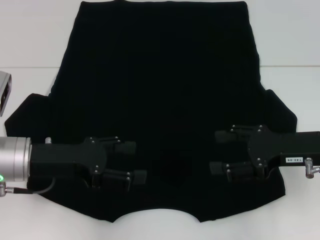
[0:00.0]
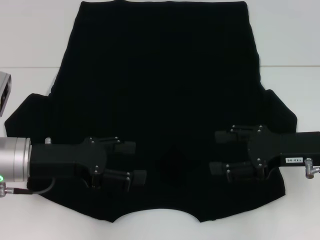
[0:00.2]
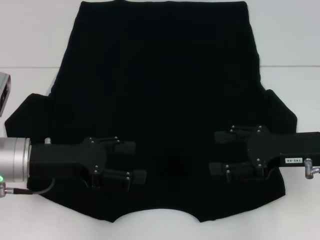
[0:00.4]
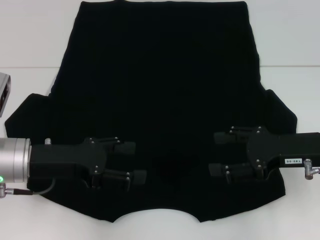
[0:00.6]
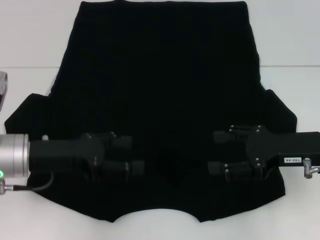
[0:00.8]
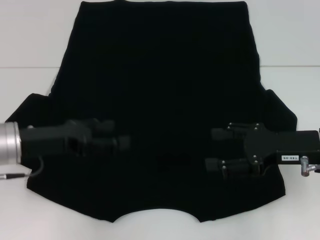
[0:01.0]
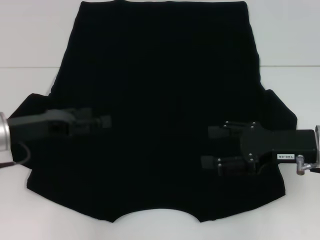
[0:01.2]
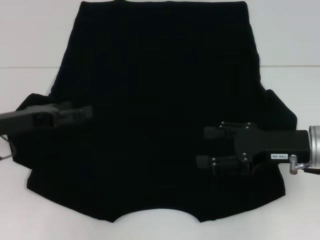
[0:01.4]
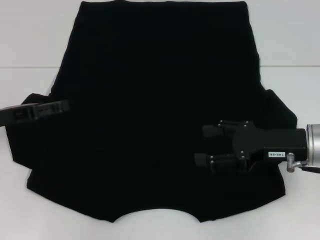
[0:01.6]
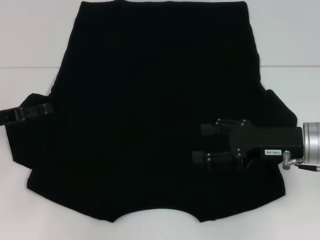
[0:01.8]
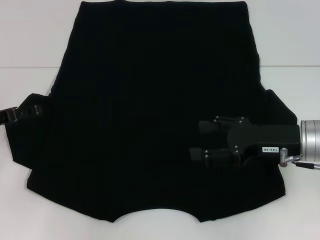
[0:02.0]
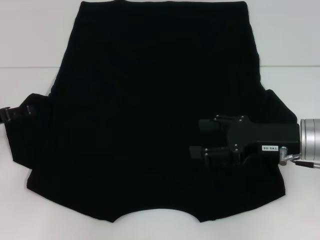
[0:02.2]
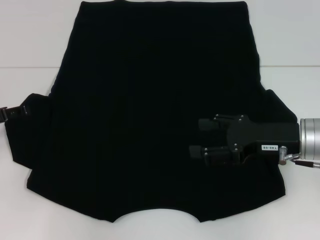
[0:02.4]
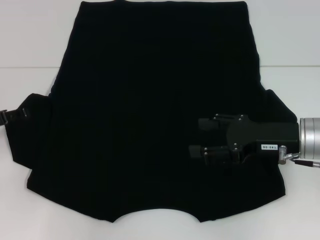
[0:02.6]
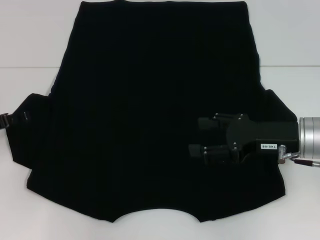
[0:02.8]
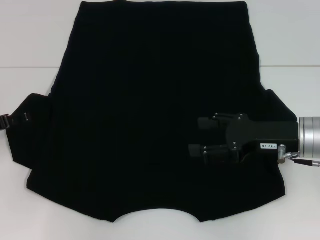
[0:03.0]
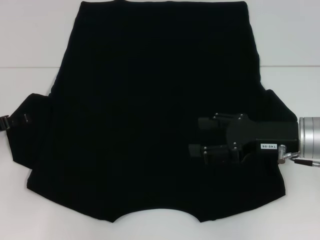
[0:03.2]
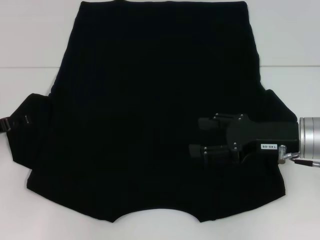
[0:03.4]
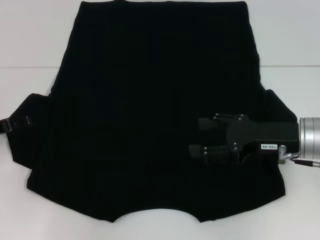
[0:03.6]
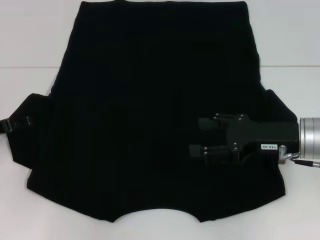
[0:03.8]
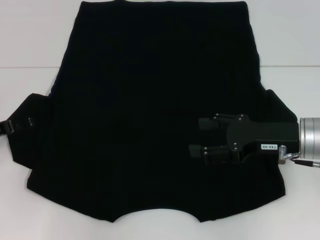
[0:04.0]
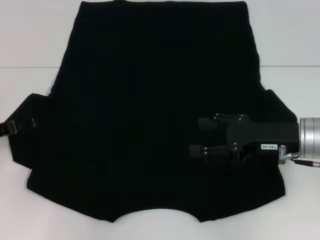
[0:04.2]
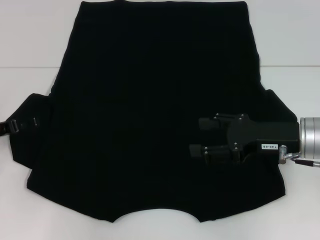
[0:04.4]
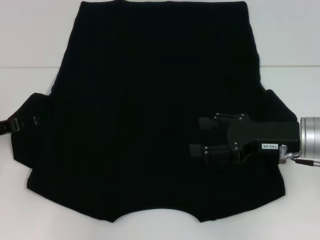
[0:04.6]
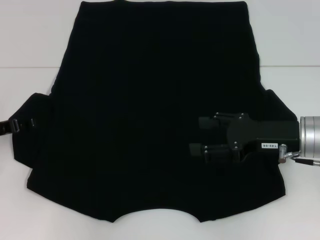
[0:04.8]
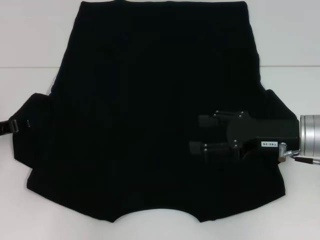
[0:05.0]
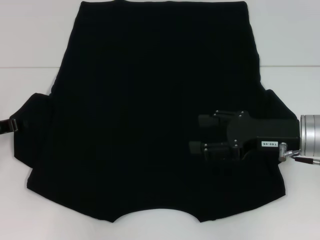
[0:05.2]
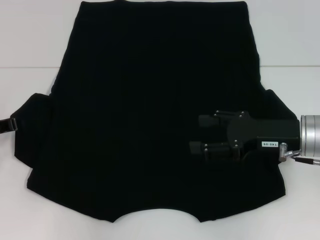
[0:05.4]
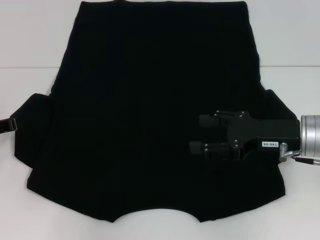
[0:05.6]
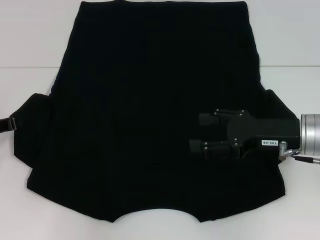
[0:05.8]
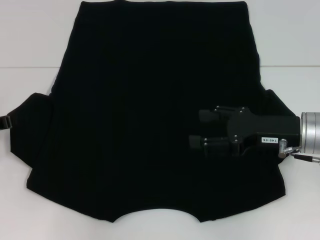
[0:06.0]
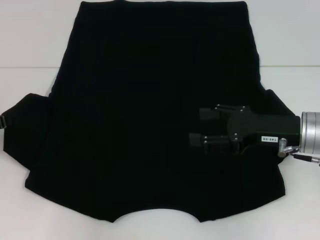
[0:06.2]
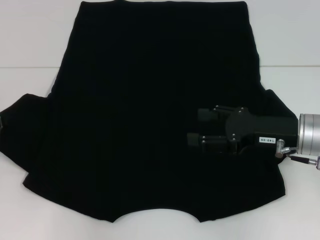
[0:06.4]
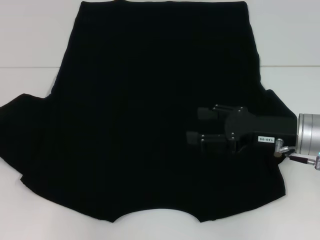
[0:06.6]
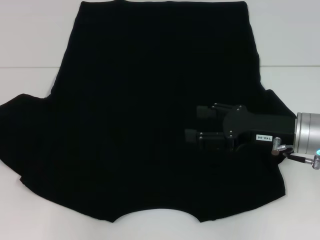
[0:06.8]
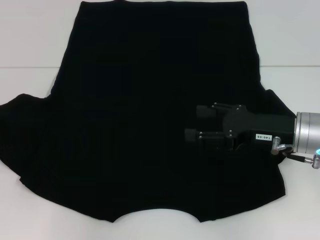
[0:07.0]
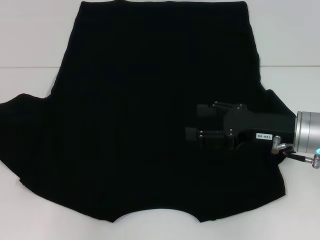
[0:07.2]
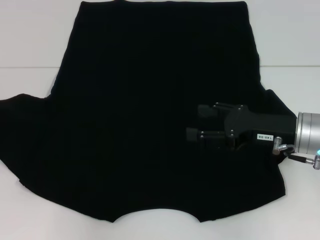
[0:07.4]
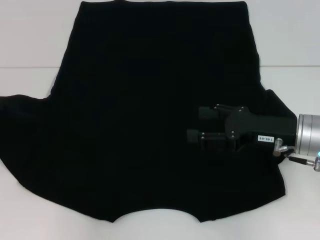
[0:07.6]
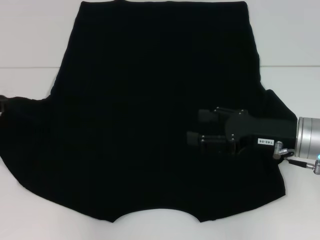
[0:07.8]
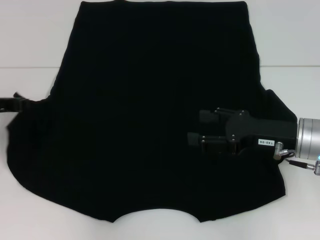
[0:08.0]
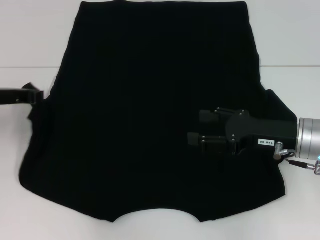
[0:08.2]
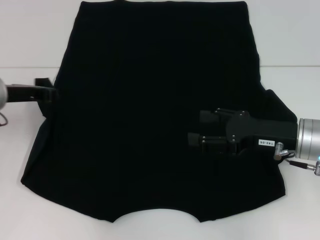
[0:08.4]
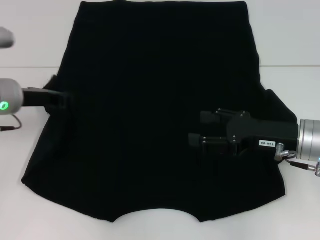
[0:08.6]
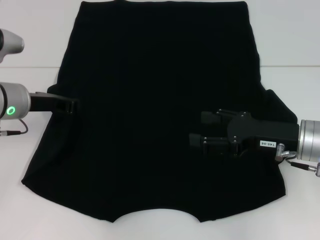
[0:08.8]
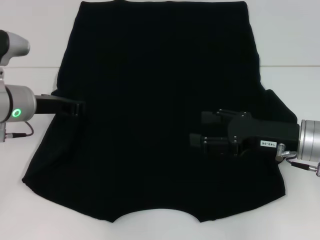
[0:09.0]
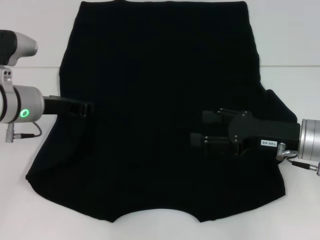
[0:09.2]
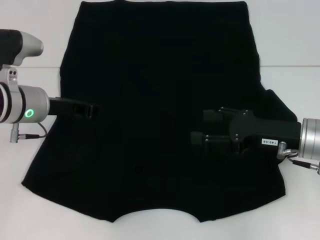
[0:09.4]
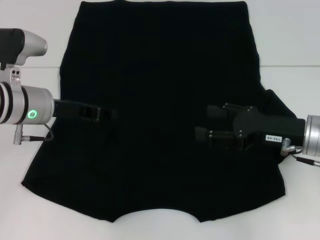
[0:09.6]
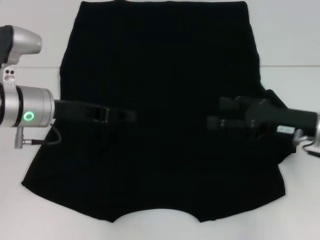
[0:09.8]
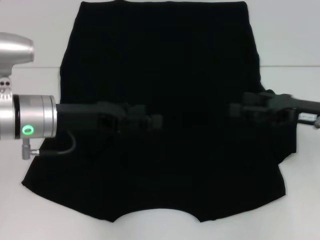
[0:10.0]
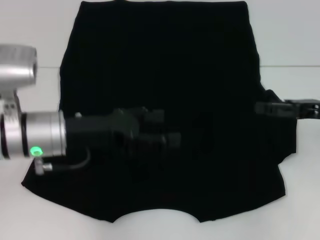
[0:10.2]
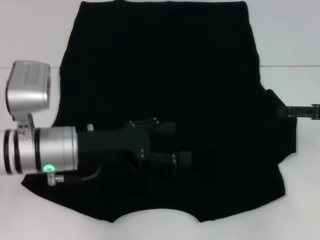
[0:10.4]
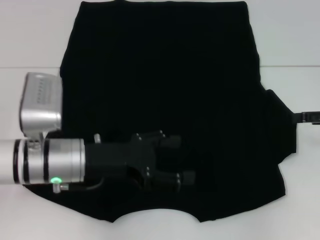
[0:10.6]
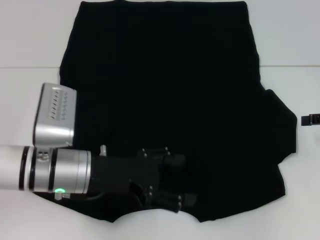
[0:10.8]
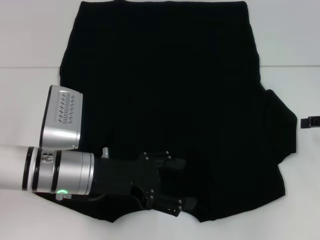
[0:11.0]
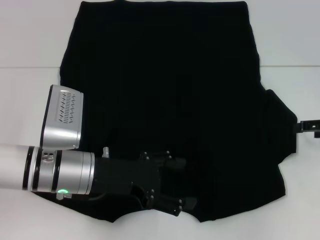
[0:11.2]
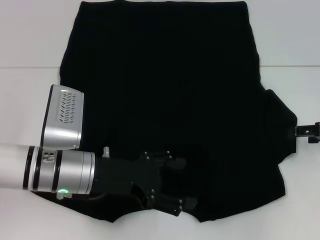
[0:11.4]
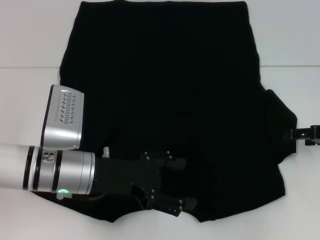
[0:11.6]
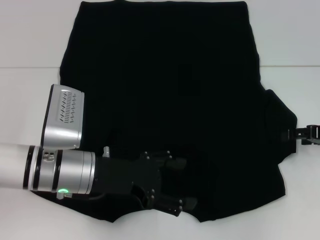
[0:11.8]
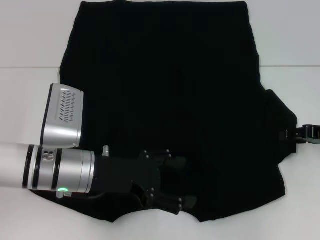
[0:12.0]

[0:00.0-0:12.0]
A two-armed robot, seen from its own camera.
Step, 0:00.0 to 0:09.4: Fold the bottom left sleeve with your left hand.
0:00.0 to 0:01.6: The left gripper moves to the left, approximately 10 cm.
0:03.0 to 0:04.4: Neither gripper changes place.
0:04.4 to 0:06.0: The left gripper closes up.
0:06.0 to 0:07.6: The grippers stay close to where they were, moving slightly.
0:07.6 to 0:09.0: The left gripper shifts some 10 cm to the right.
0:09.0 to 0:10.4: The right gripper travels to the right by roughly 10 cm. The left gripper is displaced backward and to the right by some 10 cm, and opens up.
0:10.4 to 0:12.0: The grippers make only small movements.

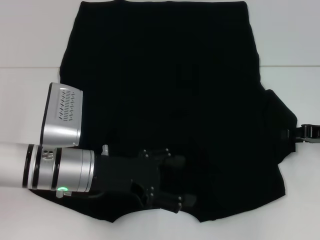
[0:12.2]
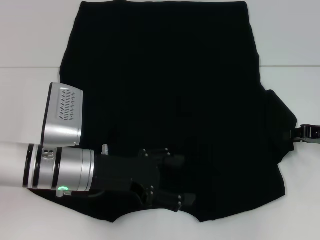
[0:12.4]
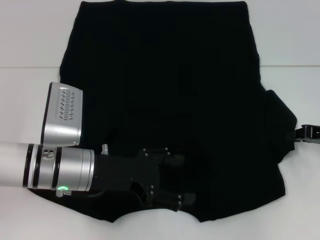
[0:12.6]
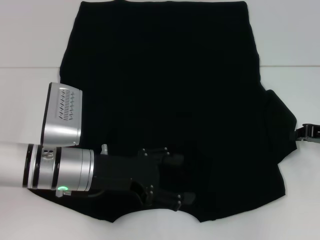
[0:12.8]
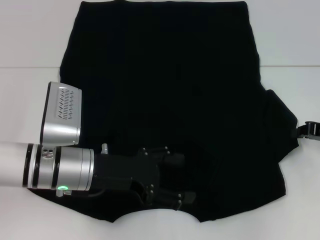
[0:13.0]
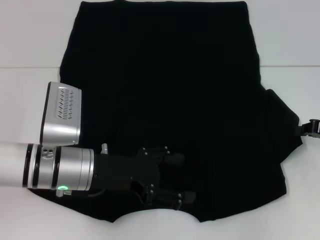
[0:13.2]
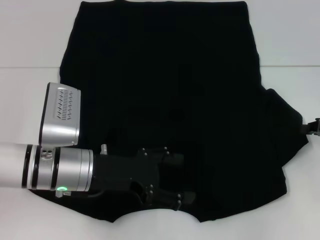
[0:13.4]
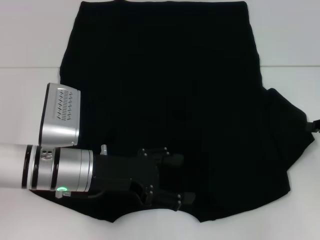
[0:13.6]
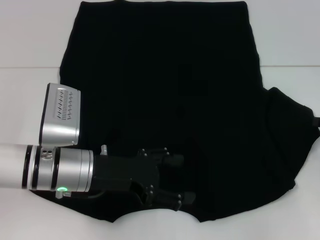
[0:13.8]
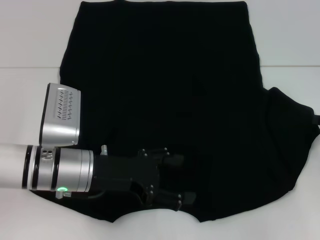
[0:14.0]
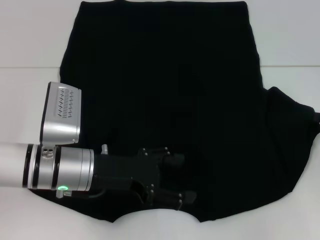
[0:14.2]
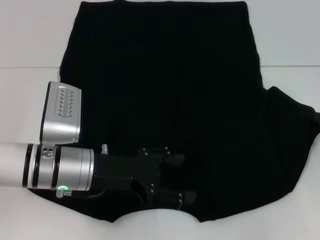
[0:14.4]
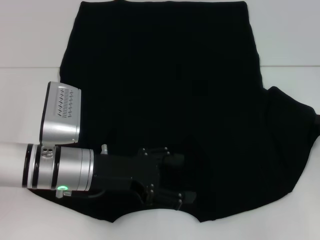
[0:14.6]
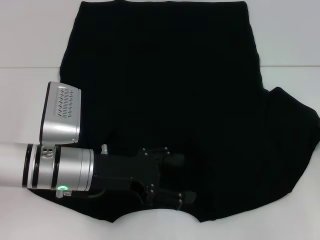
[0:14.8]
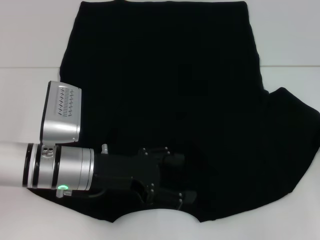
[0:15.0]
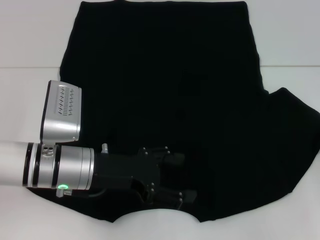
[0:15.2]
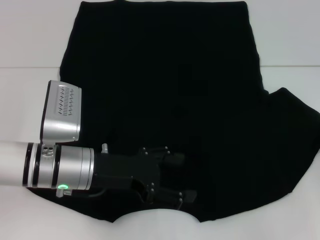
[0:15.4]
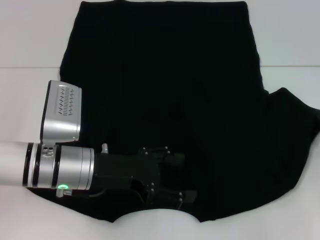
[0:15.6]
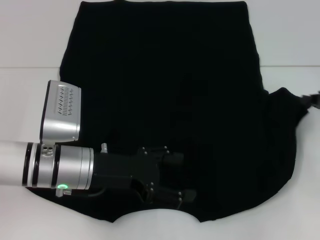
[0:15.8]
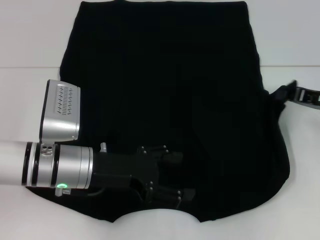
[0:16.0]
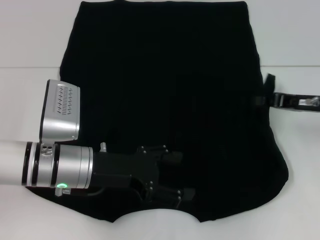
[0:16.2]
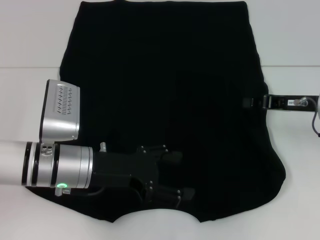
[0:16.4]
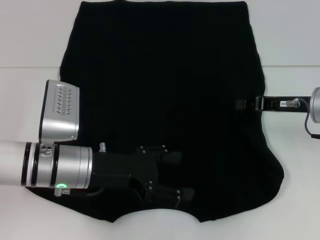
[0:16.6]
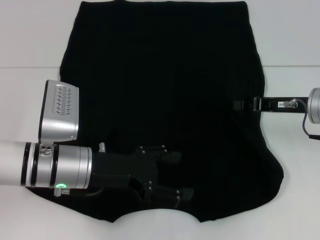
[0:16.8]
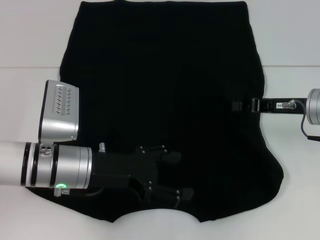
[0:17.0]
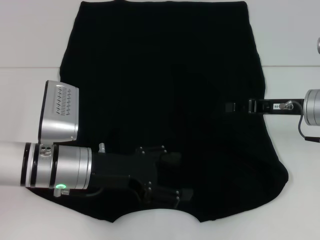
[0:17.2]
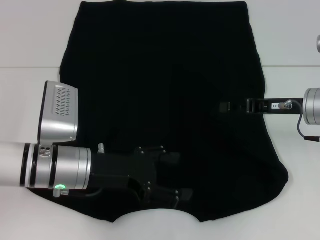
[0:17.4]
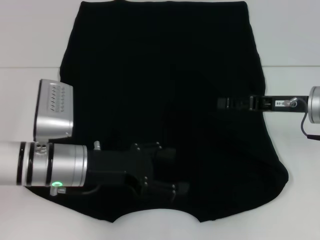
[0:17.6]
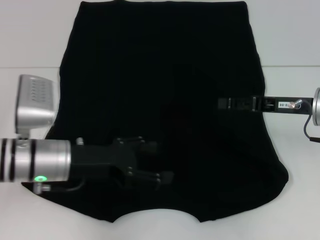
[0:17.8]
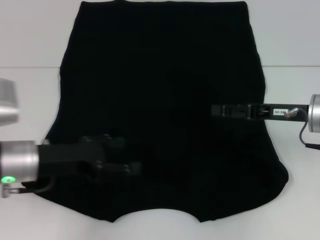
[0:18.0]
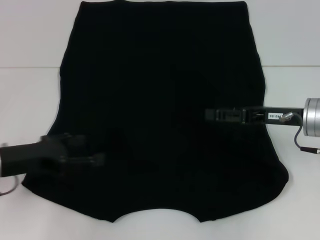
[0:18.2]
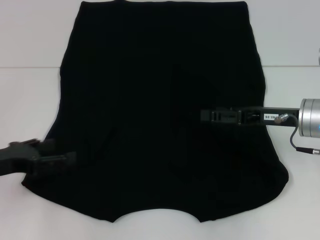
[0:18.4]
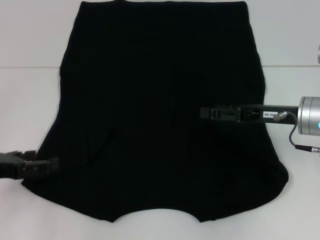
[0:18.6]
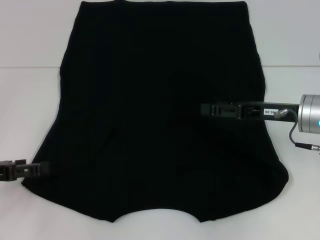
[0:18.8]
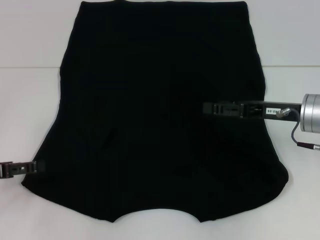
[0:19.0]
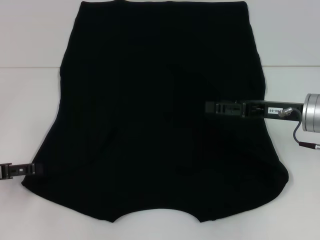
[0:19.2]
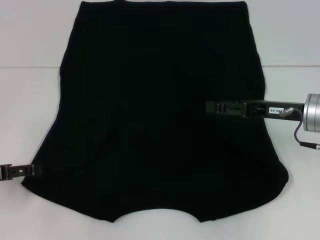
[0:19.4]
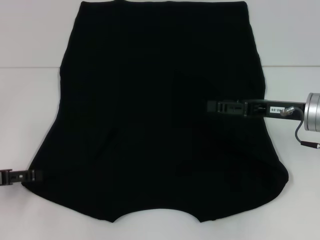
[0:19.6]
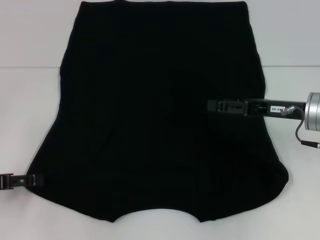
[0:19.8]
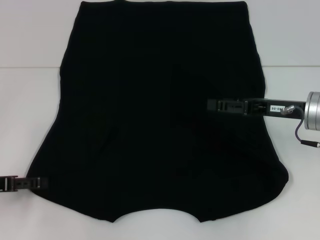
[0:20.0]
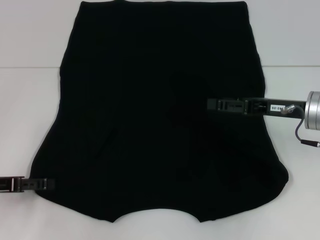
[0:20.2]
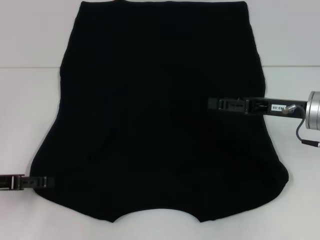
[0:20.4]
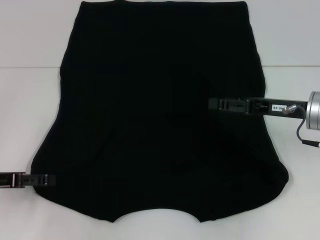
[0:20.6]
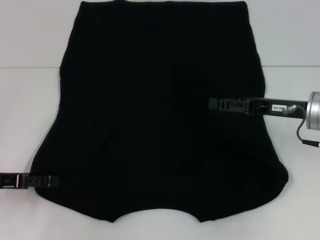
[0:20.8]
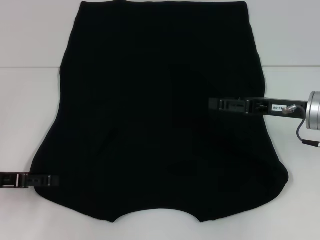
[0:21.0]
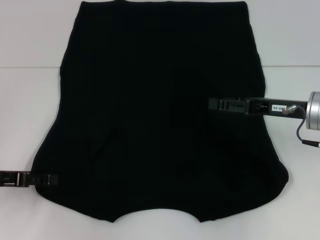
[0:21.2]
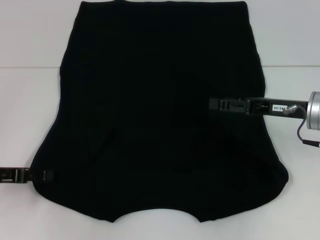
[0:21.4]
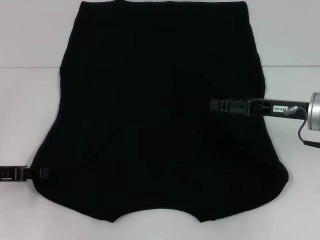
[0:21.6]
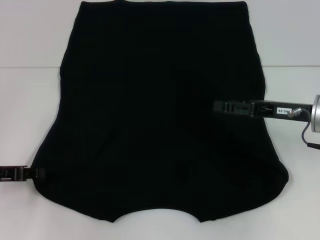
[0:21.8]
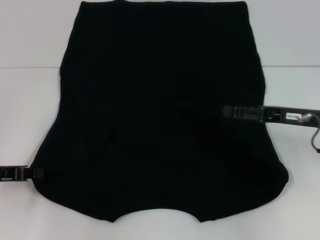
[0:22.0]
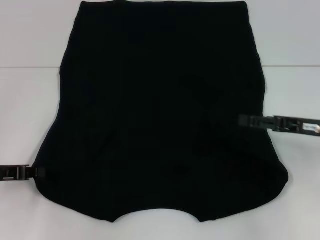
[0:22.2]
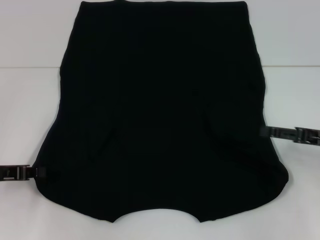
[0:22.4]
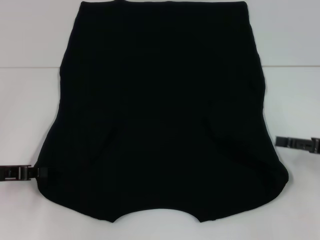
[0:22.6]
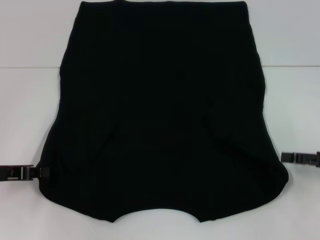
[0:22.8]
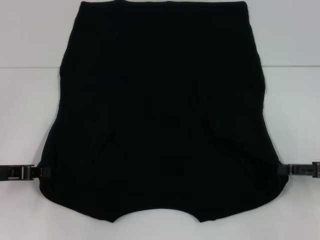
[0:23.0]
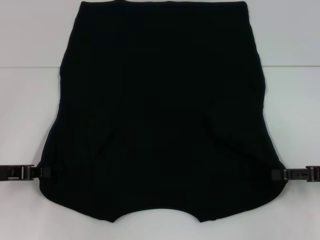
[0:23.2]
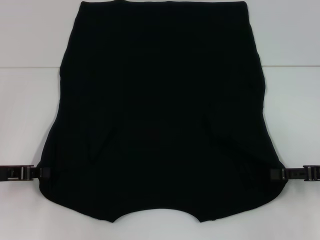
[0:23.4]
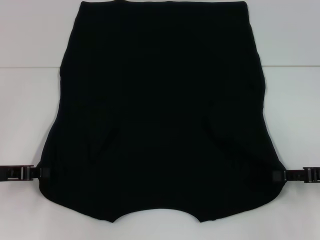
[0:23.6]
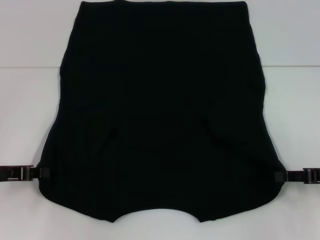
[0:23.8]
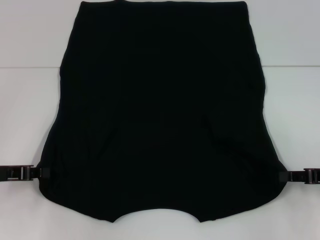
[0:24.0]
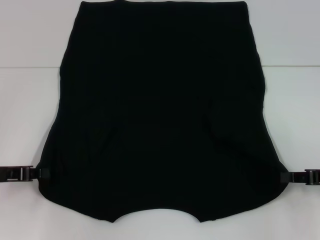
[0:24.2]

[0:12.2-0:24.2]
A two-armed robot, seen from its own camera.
Step, 0:12.2 to 0:17.6: Fold the bottom right sleeve with your right hand.
Step, 0:17.8 to 0:22.0: Grab the bottom left corner with your left hand.
0:12.2 to 0:13.8: The right gripper closes up.
0:13.8 to 0:15.2: The grippers move only a little.
0:15.2 to 0:16.6: The right gripper moves to the left, roughly 10 cm.
0:16.6 to 0:18.2: The left gripper is displaced to the left by approximately 10 cm. Meanwhile the right gripper opens up.
0:18.2 to 0:19.8: The left gripper is displaced to the left by some 5 cm.
0:19.8 to 0:21.2: The grippers make only small movements.
0:21.2 to 0:22.6: The left gripper closes its fingers. The right gripper goes some 10 cm to the right and backward.
0:22.6 to 0:24.2: The right gripper closes up.
